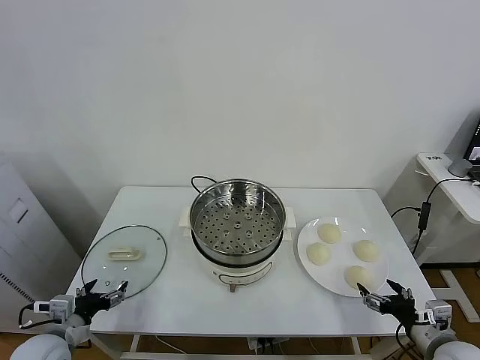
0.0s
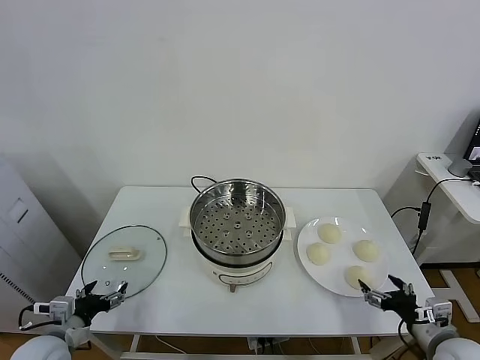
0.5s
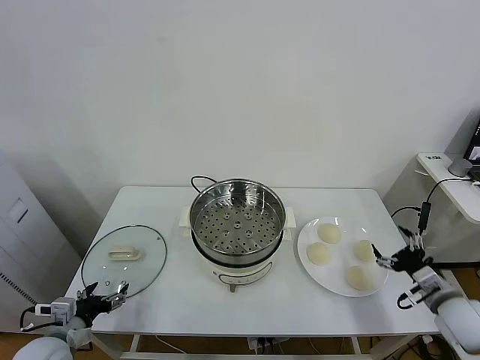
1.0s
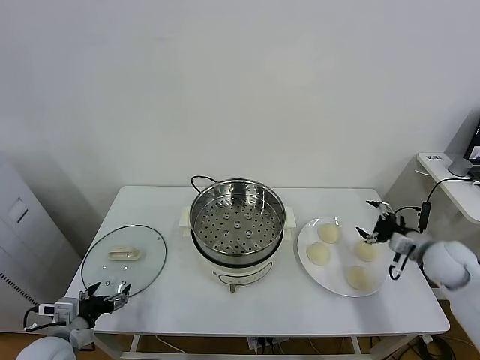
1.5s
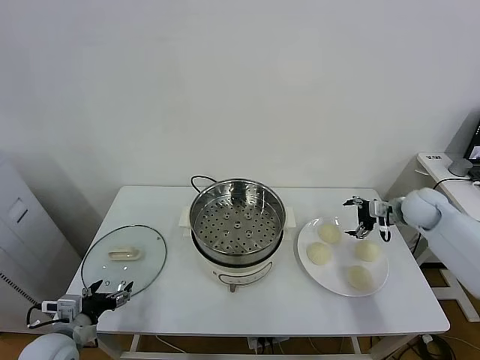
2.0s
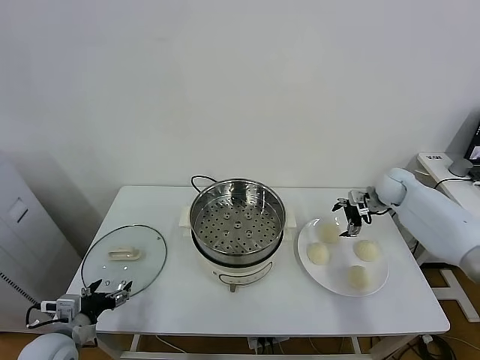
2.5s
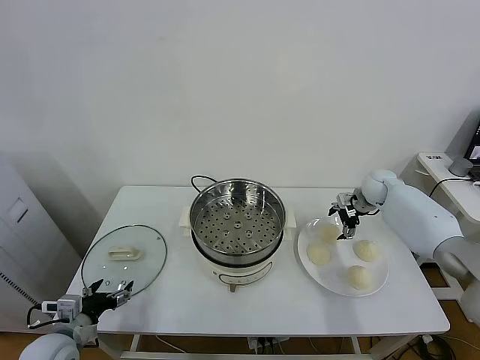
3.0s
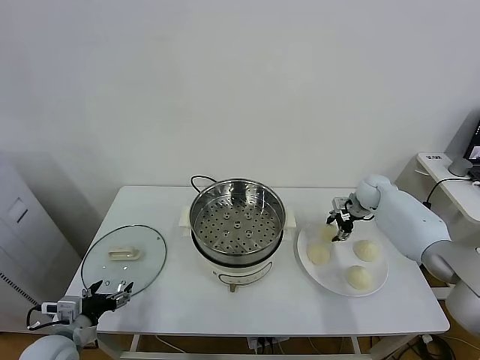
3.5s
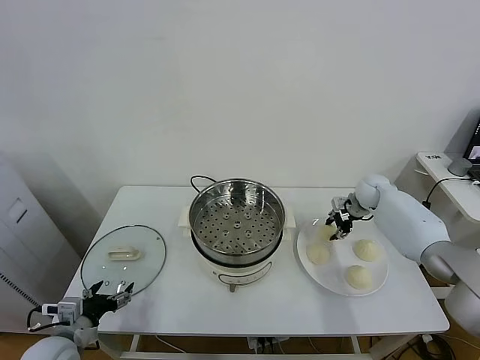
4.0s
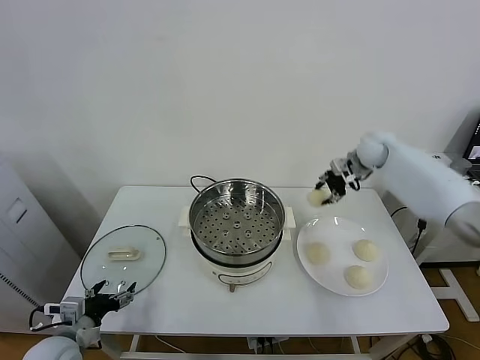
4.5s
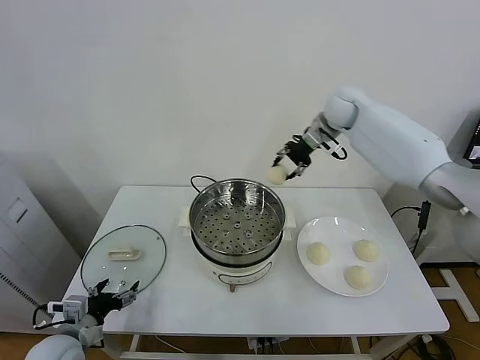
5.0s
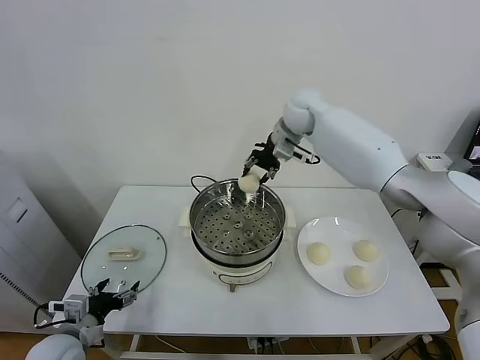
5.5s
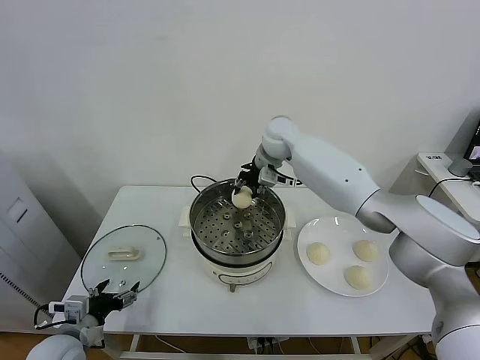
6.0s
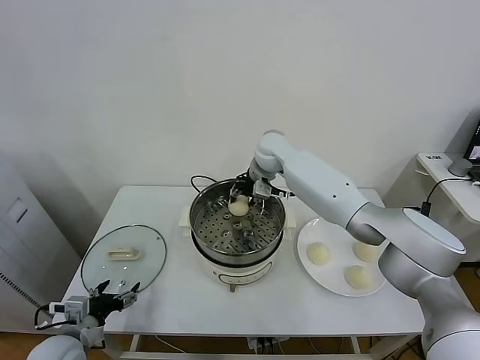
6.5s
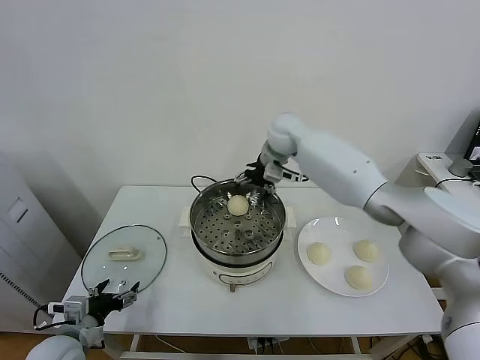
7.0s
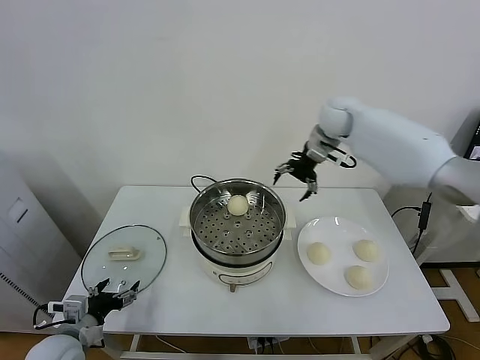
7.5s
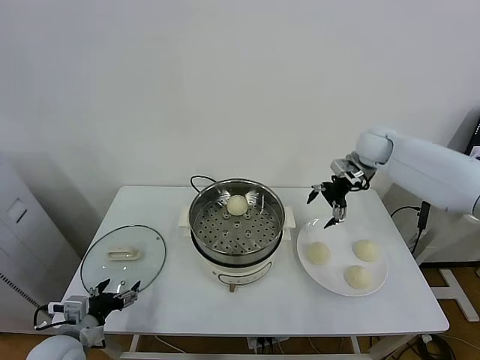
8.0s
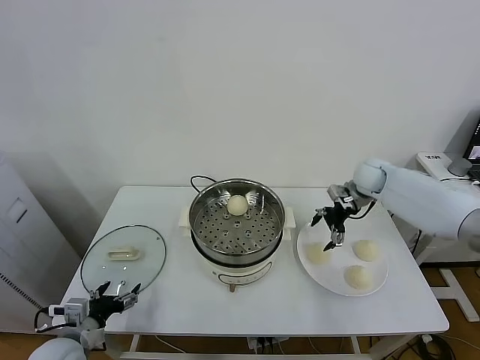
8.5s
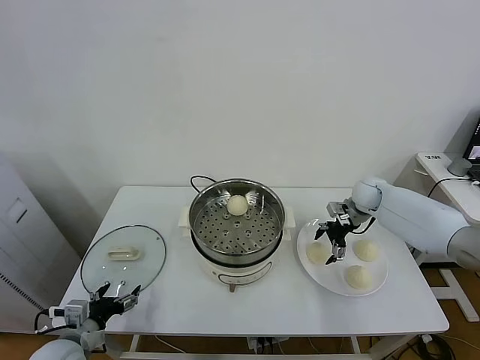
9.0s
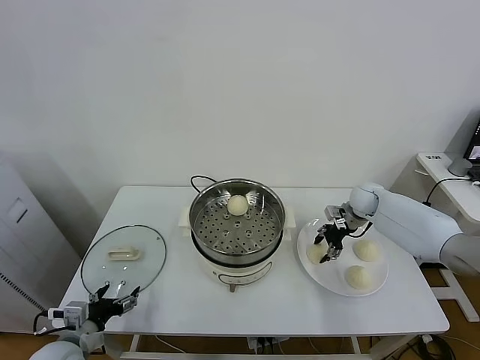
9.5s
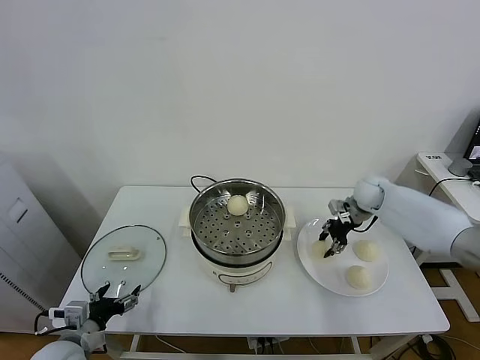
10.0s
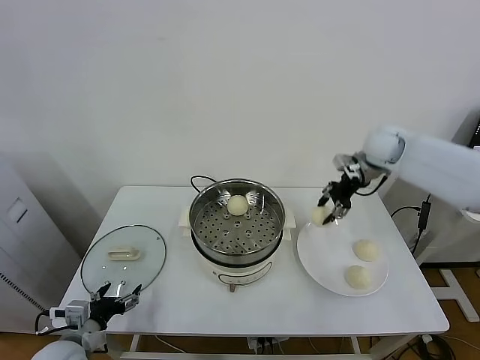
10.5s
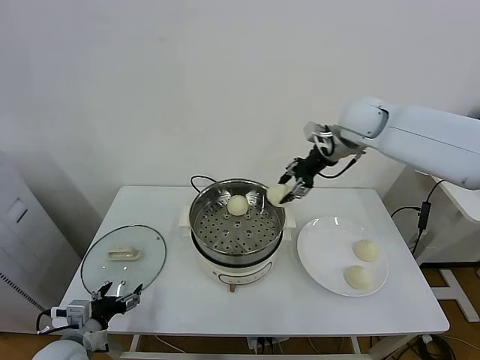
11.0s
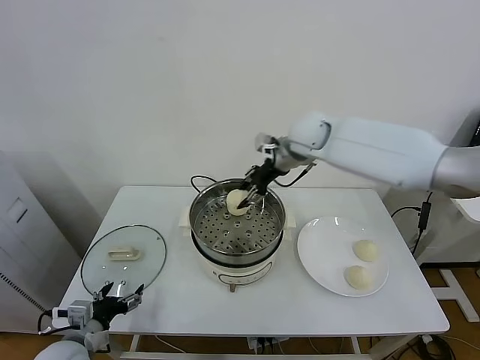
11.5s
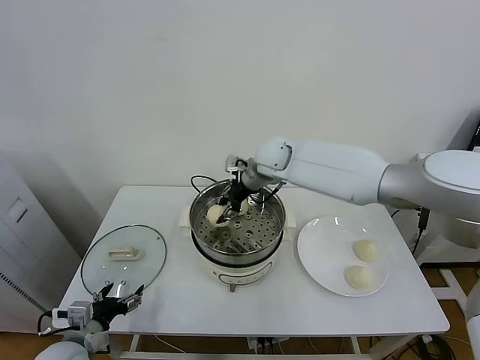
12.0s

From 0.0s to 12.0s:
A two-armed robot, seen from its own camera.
Task of the whole recording: take steamed baozi put them in steamer.
Step, from 0.0s to 3.5s: Grasp the baozi in the plate with right gripper.
Step, from 4.0s to 7.0s: Place the baozi on the steamer with right gripper.
Step, from 7.5s to 9.5s: Grasp the baozi in the plate with right gripper.
From 2.0s to 4.0s: The right gripper goes approximately 10 cm forward and to the left, and closes its fingers.
From 4.0s to 6.0s: The right gripper moves to the left and upward, approximately 30 cm.
From 6.0s to 8.0s: The right gripper goes roughly 25 cm to the right, and opens its fingers.
From 8.0s to 10.0s: The right gripper is displaced downward by some 10 cm, and closes up.
From 10.0s to 12.0s: The right gripper heads to the left, covering some 30 cm.

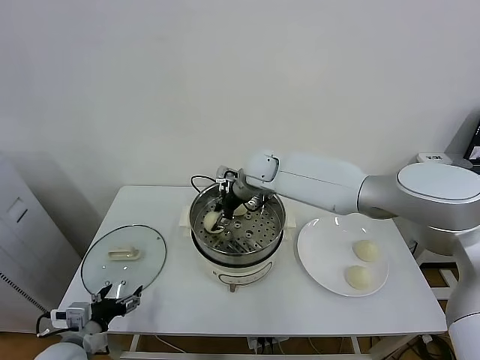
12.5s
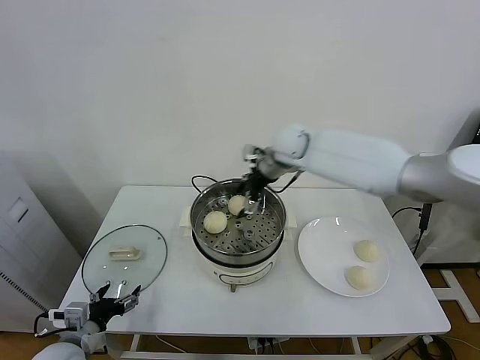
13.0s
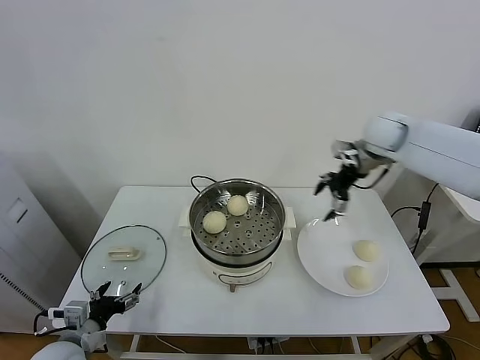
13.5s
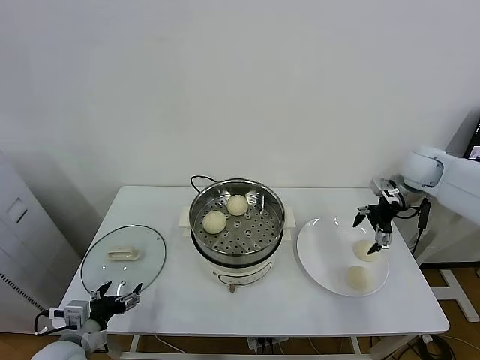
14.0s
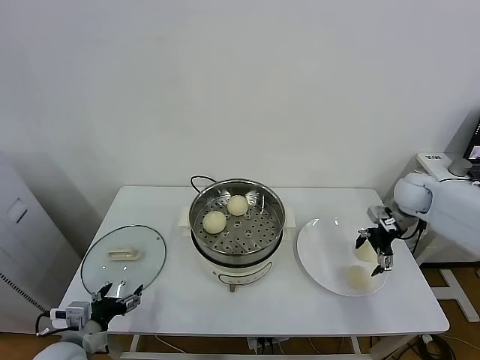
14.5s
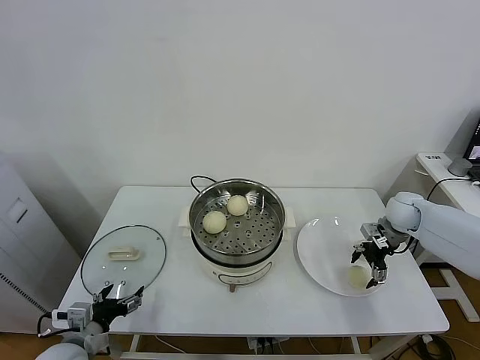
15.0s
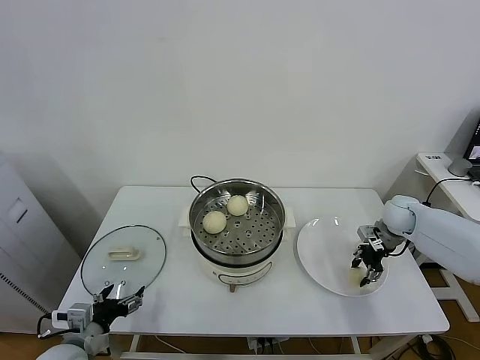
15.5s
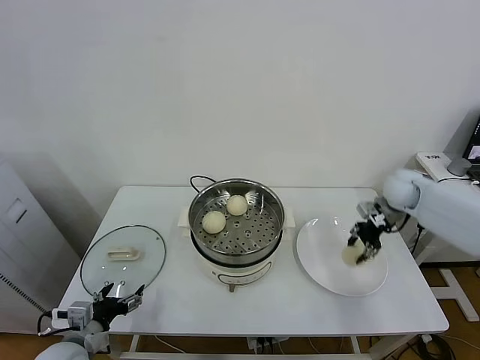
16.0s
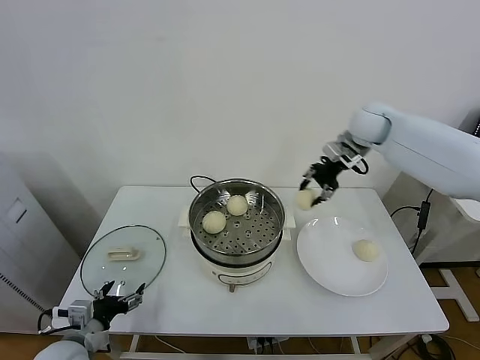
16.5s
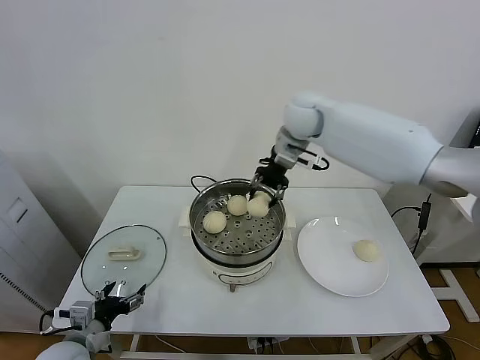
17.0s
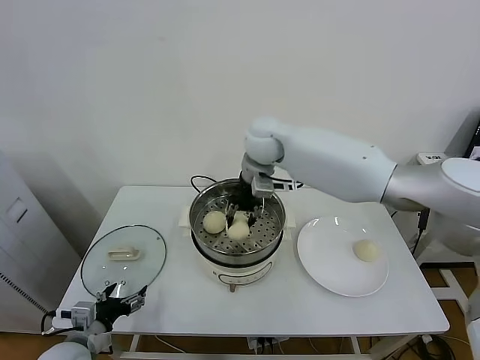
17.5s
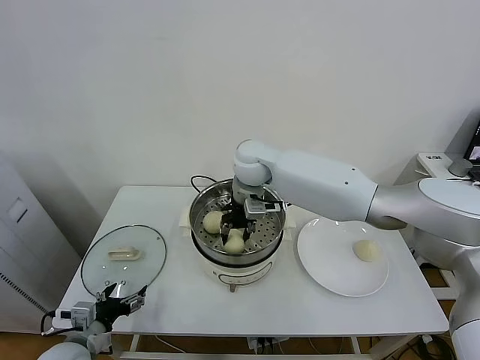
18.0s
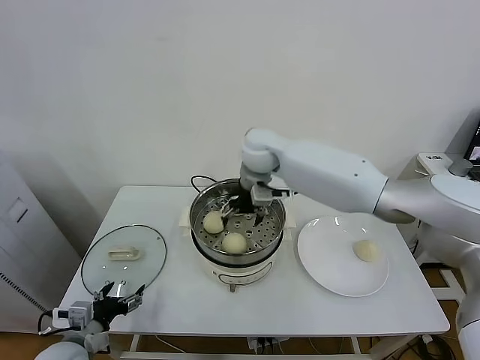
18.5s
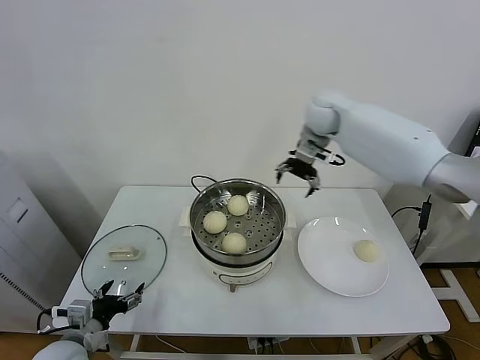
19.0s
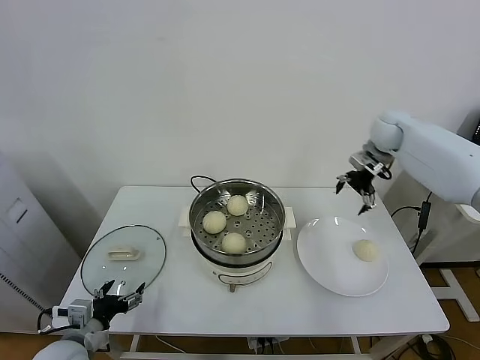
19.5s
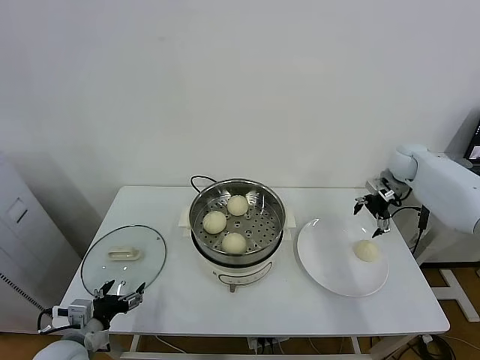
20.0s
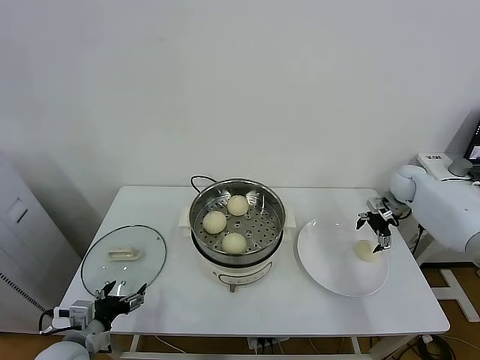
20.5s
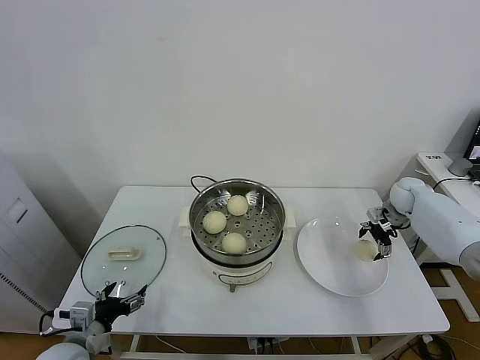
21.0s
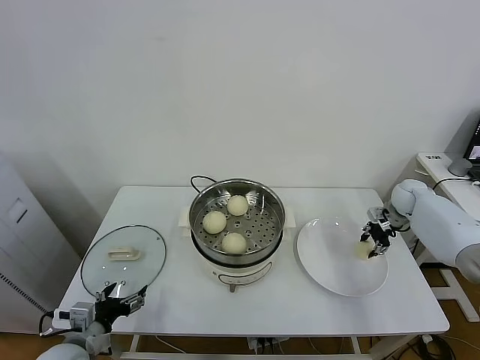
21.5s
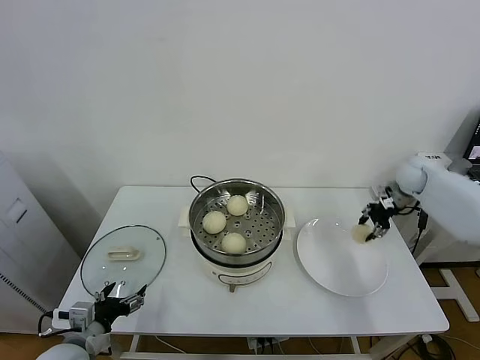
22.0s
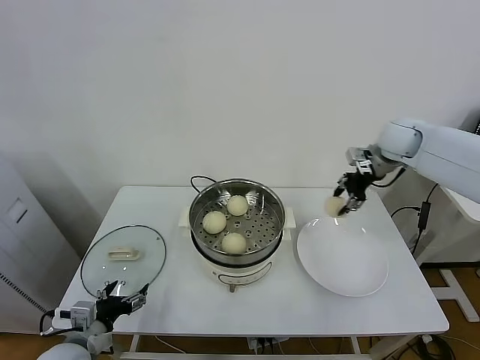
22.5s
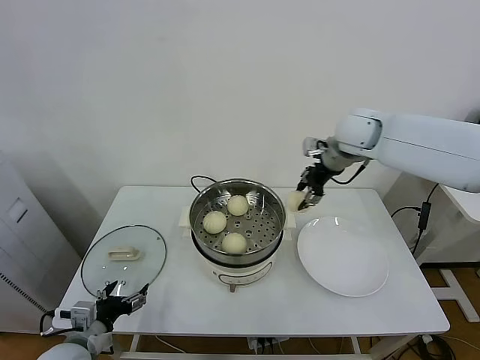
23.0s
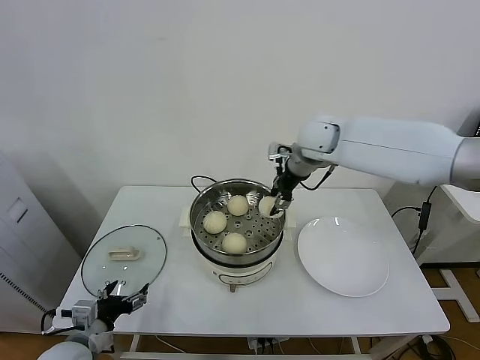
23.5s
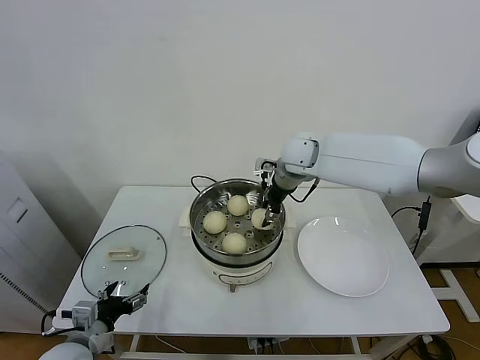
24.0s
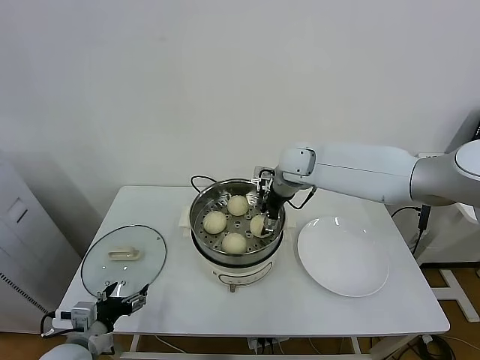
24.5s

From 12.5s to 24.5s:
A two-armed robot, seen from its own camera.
Task of the whole recording: take steamed baozi put them in steamer.
Step, from 13.0s to 15.0s: Grasp the baozi in the plate with right gripper.
Step, from 15.5s to 18.0s: Place the baozi on the steamer with right gripper.
Step, from 18.5s to 21.0s: Grasp the baozi in the plate with right gripper.
From 12.5s to 14.5s: The right gripper shifts approximately 35 cm to the right, and opens its fingers.
From 14.5s to 16.5s: The right gripper goes approximately 25 cm upward, to the left and forward, and closes its fingers.
From 16.5s to 18.5s: The right gripper moves to the left, approximately 20 cm, and opens.
From 18.5s to 20.5s: The right gripper travels to the right by some 40 cm.
From 20.5s to 22.5s: The right gripper heads upward and to the left, covering some 20 cm, and closes its fingers.
From 22.5s to 24.5s: The right gripper heads to the left, covering roughly 20 cm, and opens.

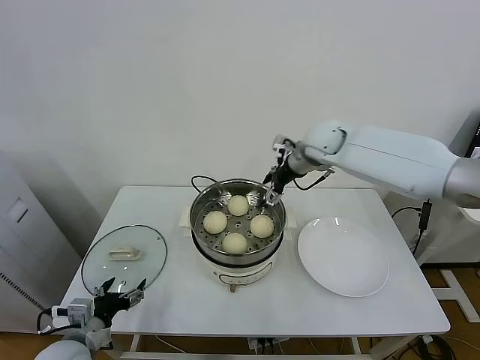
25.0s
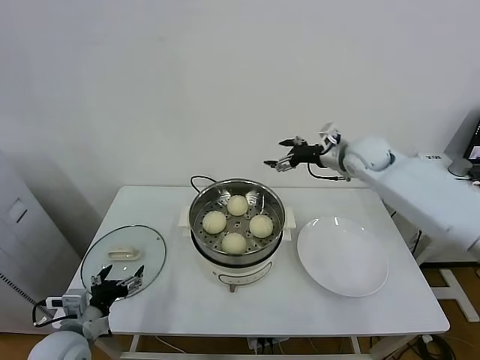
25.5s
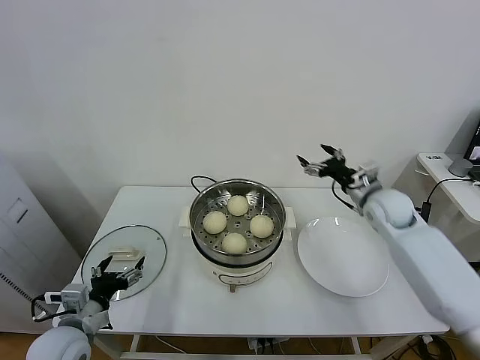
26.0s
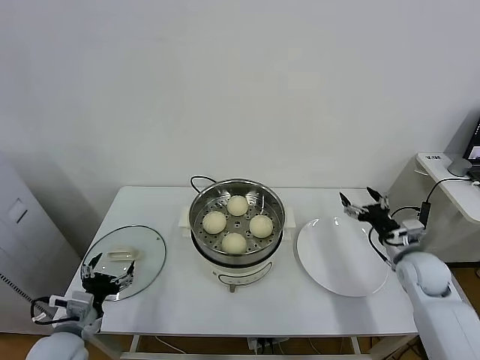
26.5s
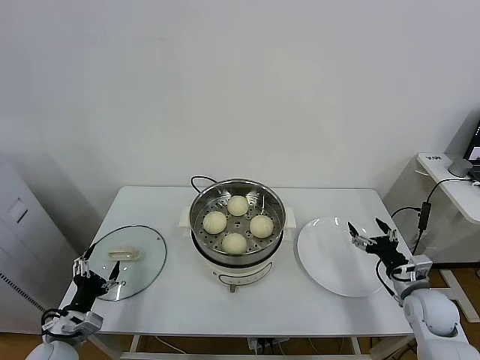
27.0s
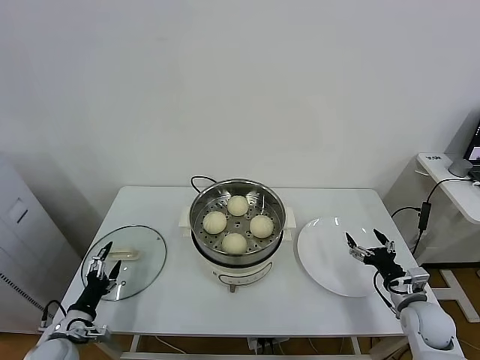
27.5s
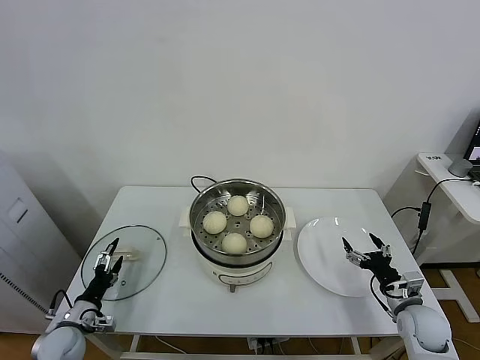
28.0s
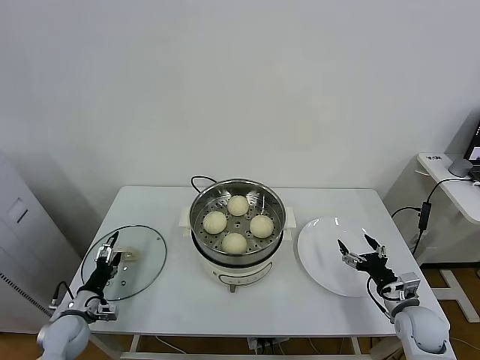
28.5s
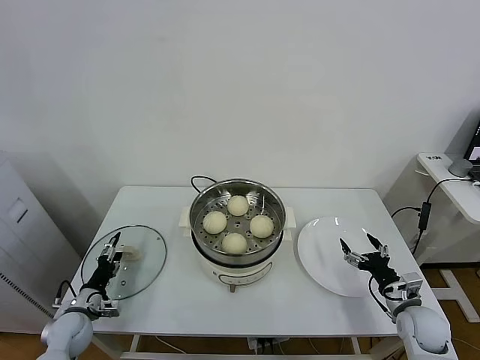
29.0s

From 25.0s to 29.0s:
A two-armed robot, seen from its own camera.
Task of the whole recording: take steamed baozi put them in steamer.
From 25.0s to 27.0s: The left gripper shifts by roughly 5 cm. Meanwhile the right gripper travels downward, backward and to the right by some 40 cm.
From 27.0s to 29.0s: The left gripper moves forward and downward, some 10 cm.
